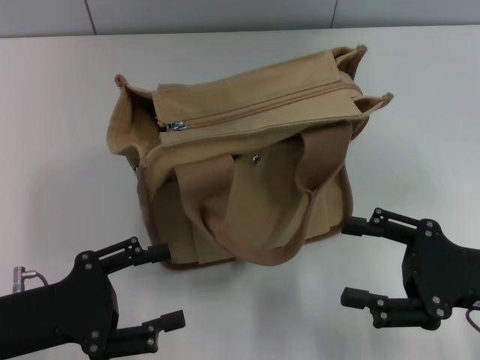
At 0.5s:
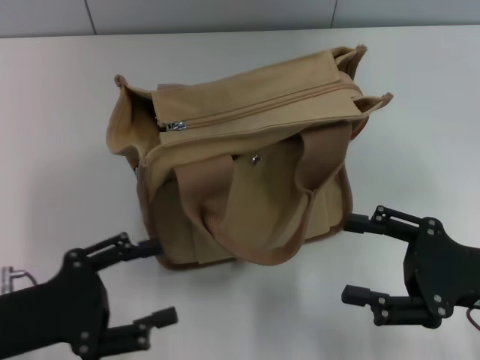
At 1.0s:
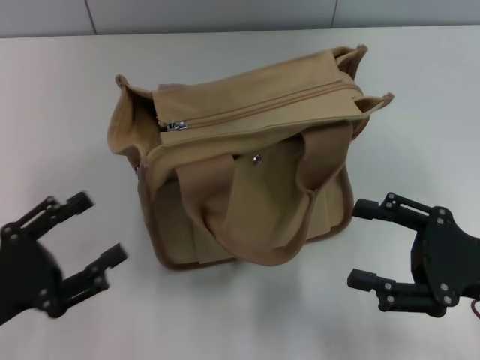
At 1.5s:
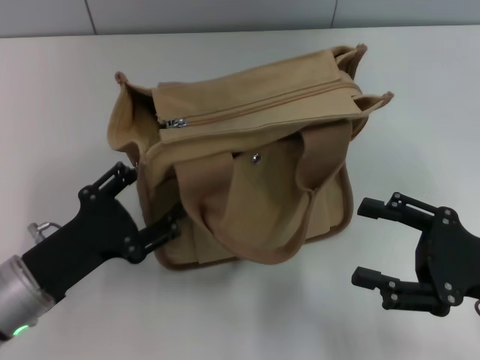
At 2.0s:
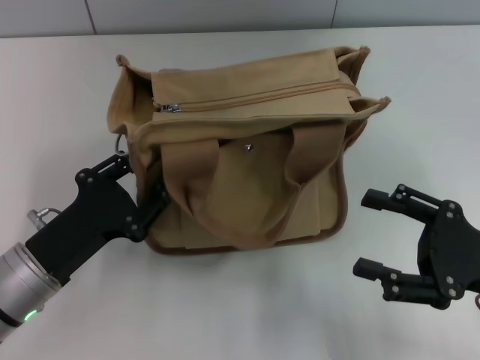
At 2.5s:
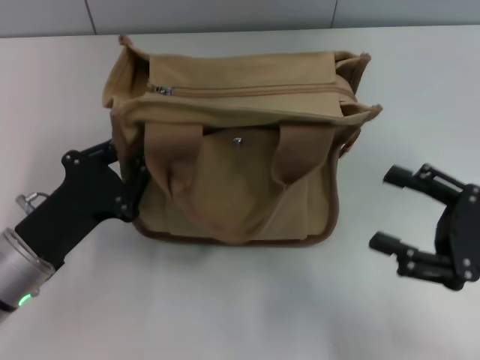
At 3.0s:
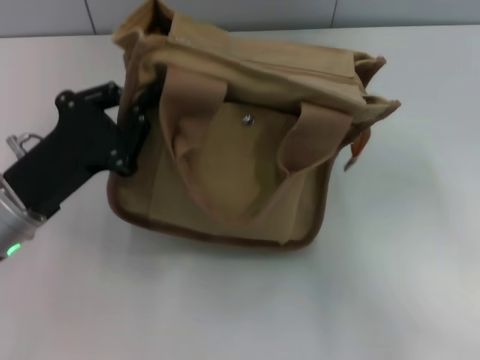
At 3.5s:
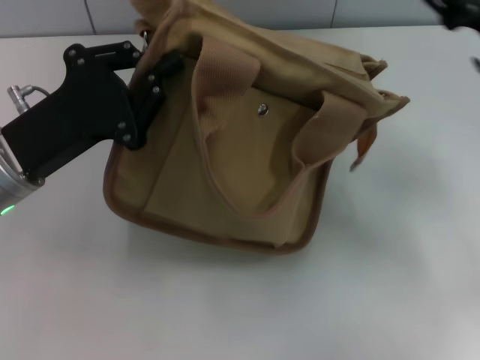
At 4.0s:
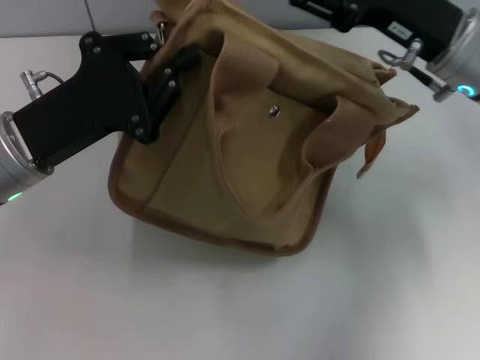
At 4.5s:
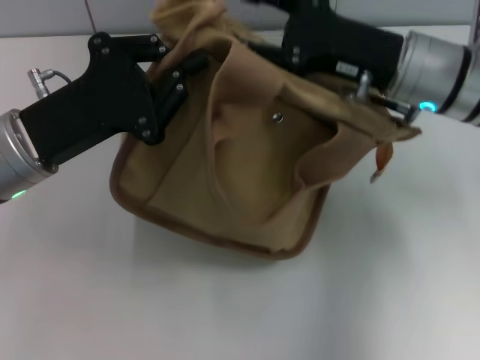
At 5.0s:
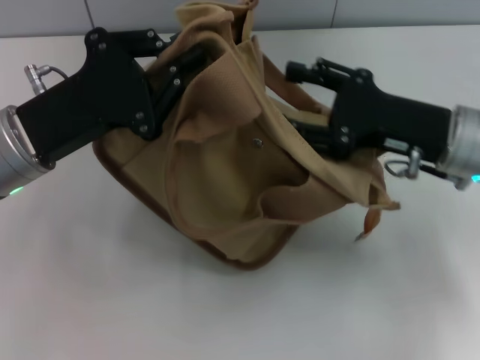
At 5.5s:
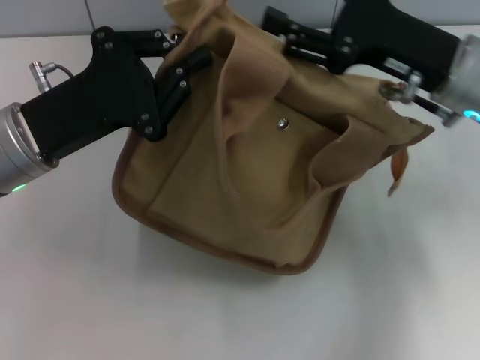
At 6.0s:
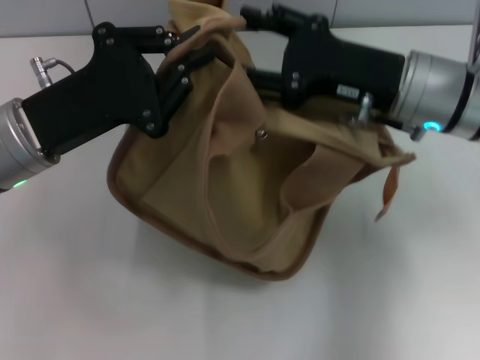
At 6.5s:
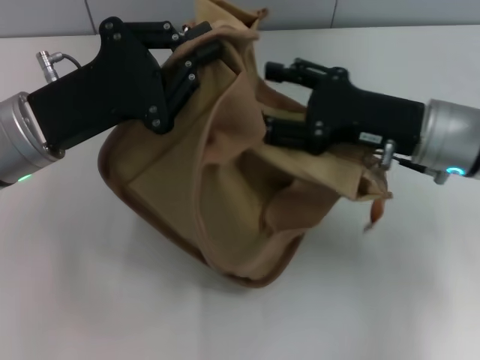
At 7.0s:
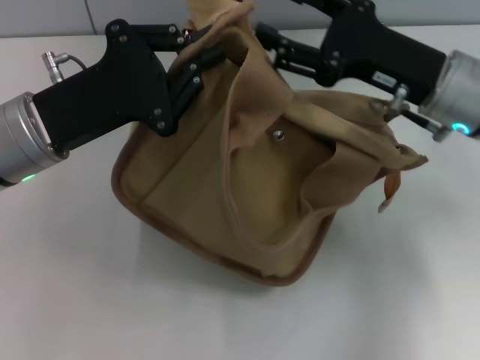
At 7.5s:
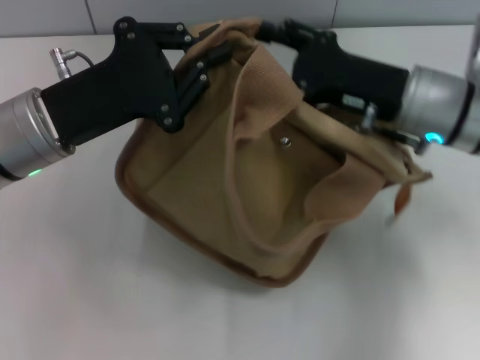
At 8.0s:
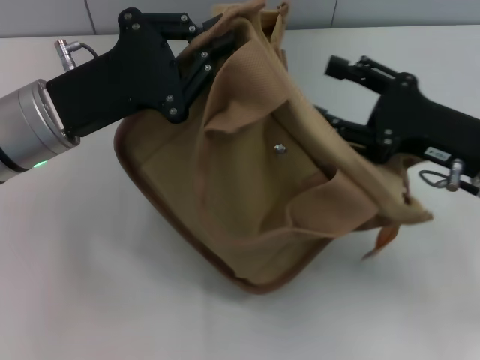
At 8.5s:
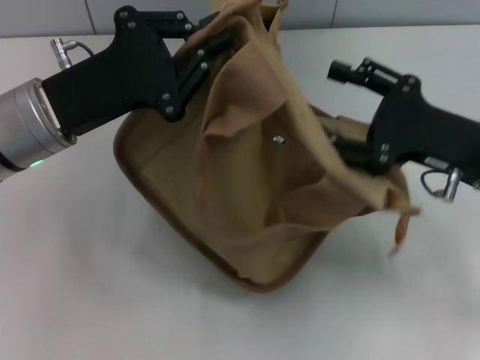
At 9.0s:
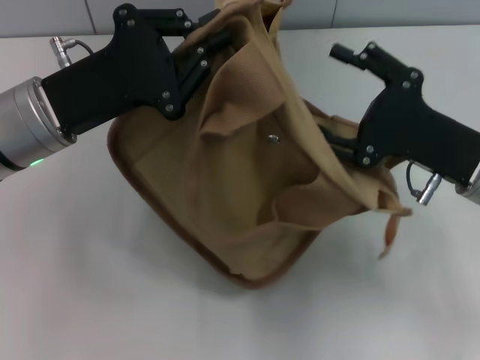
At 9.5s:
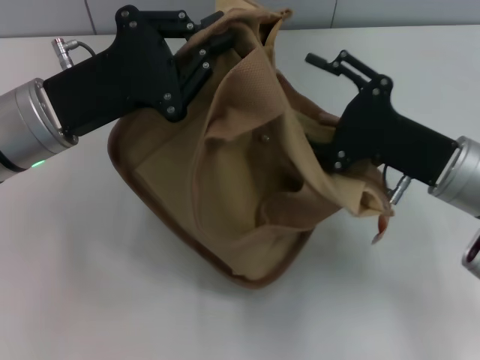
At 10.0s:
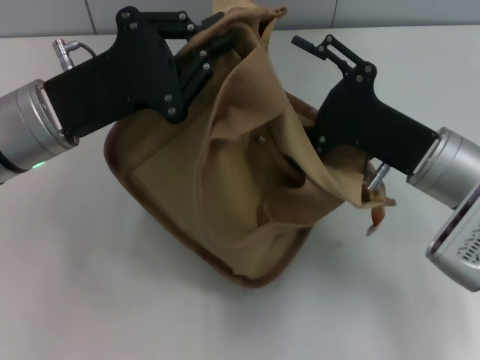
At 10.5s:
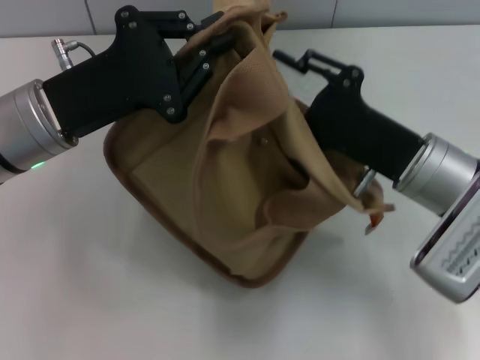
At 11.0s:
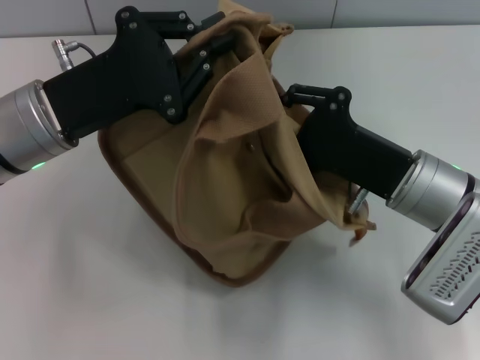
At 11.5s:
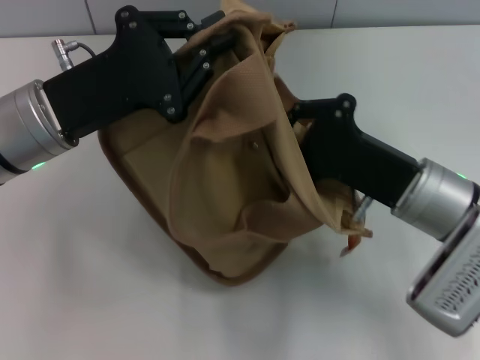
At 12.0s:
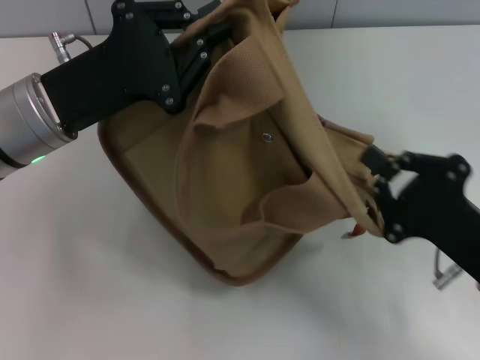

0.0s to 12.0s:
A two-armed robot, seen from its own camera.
0.0s to 2.0s: The left gripper changes place by about 5 cm.
2.0s to 4.0s: The left gripper moves upward and forward, about 10 cm, and closes up; the right gripper travels forward, upward and to the left by approximately 20 cm.
6.0s to 8.0s: The right gripper travels to the right and backward by roughly 10 cm.
8.0s to 10.0s: The right gripper ends up about 5 cm from where it was.
10.0s to 12.0s: The right gripper is displaced backward by about 10 cm, and closes.

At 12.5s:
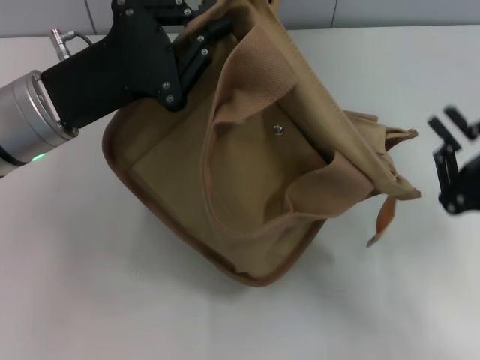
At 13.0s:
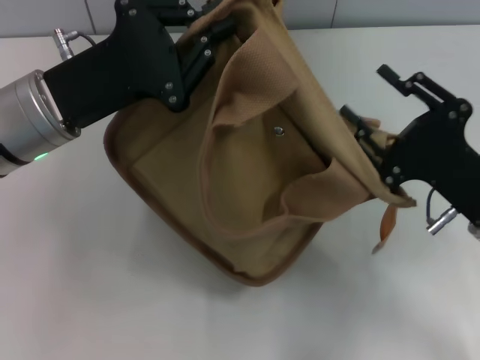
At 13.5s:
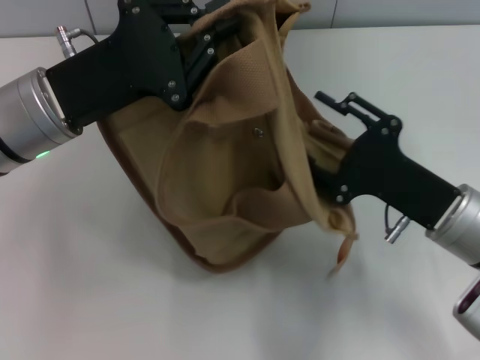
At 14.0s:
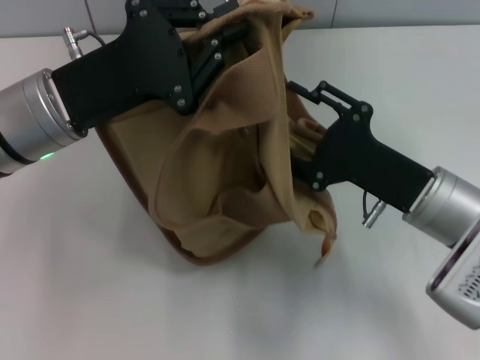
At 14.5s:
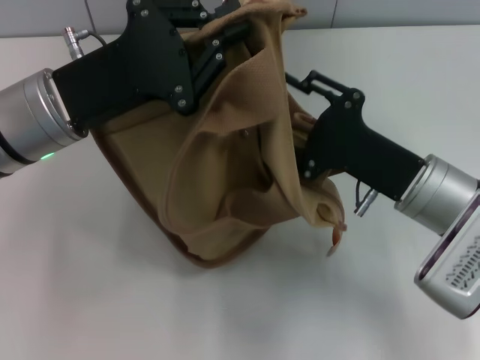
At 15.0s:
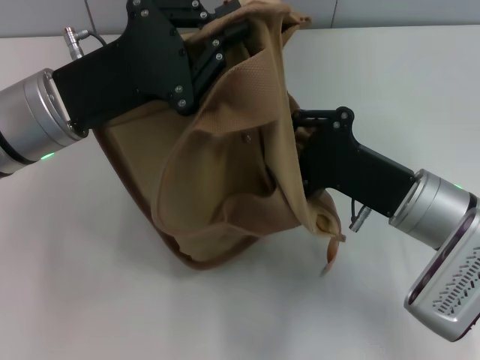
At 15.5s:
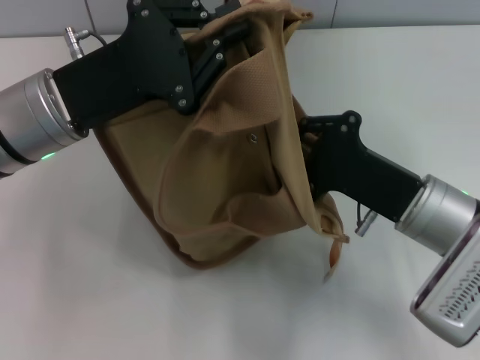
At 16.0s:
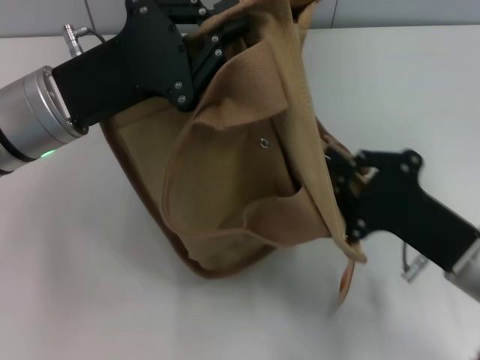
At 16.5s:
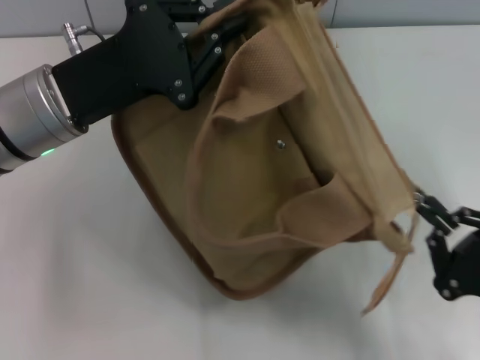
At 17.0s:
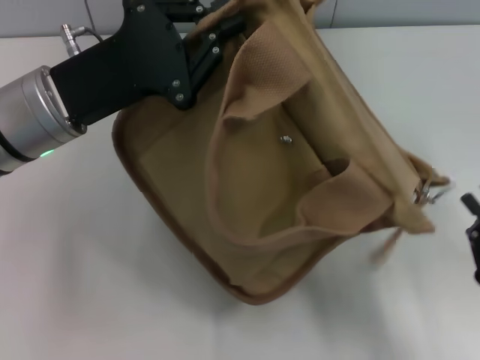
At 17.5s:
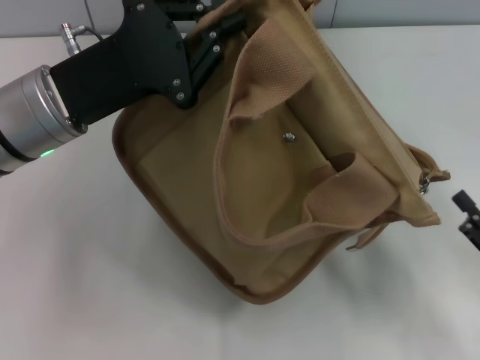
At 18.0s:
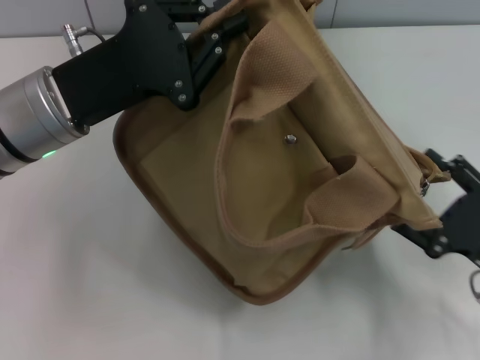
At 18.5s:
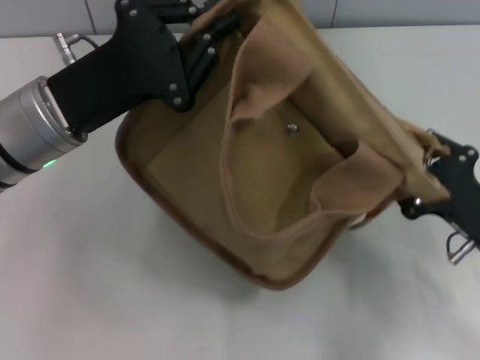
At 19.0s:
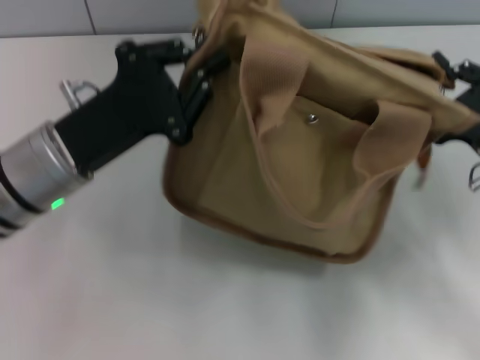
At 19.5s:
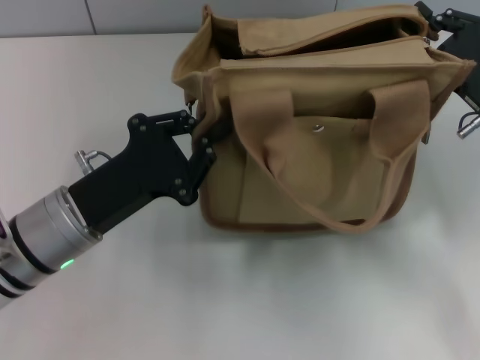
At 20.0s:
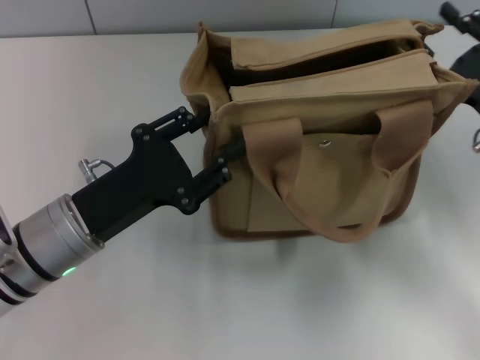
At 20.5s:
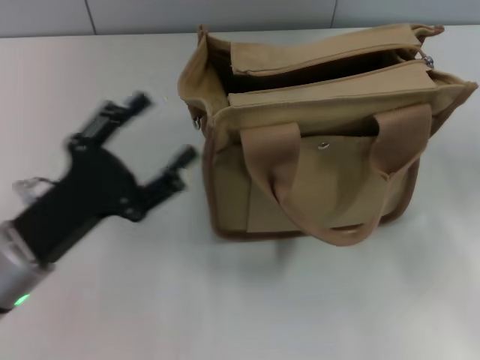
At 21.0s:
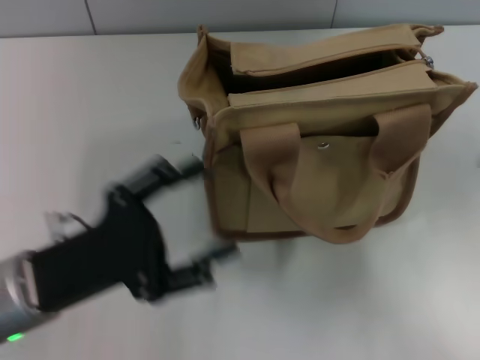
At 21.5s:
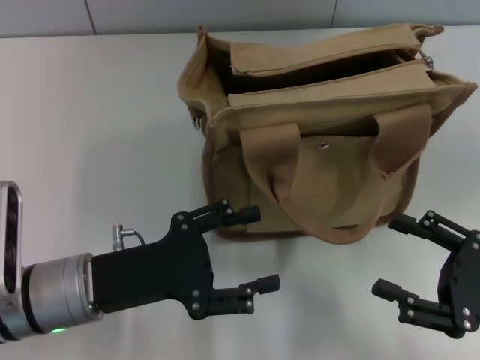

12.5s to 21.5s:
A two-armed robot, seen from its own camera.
Step, 12.5s to 17.0s: Pull open the zipper with your right hand.
Step, 17.5s to 20.0s: Grab the bag with your left hand.
12.5s to 14.5s: The right gripper moves to the left and forward, approximately 10 cm, and opens its fingers.
14.5s to 17.0s: The right gripper travels backward and to the right by approximately 20 cm, and closes its fingers.
17.0s to 19.5s: The right gripper is displaced forward by approximately 20 cm, and opens and closes again. Meanwhile the left gripper goes approximately 10 cm downward and backward.
19.5s to 21.5s: The left gripper opens up; the right gripper travels backward by some 15 cm, and opens up.

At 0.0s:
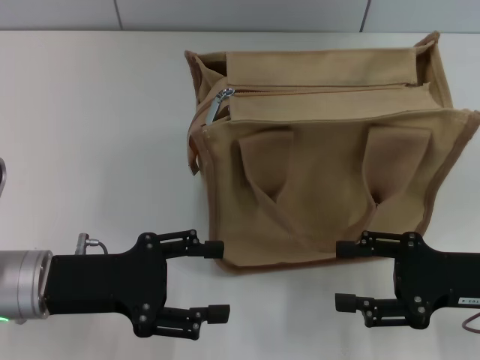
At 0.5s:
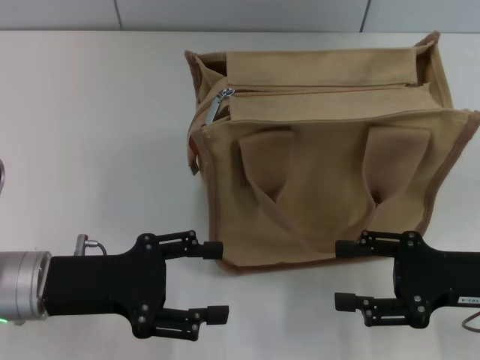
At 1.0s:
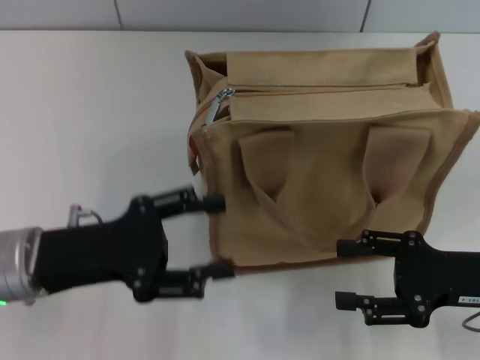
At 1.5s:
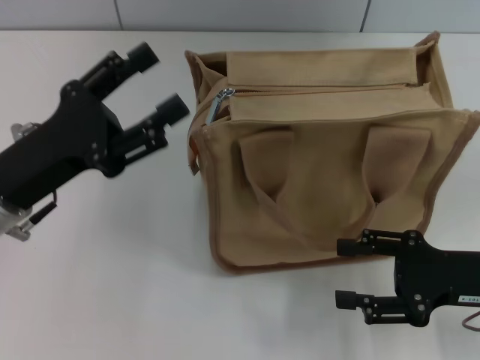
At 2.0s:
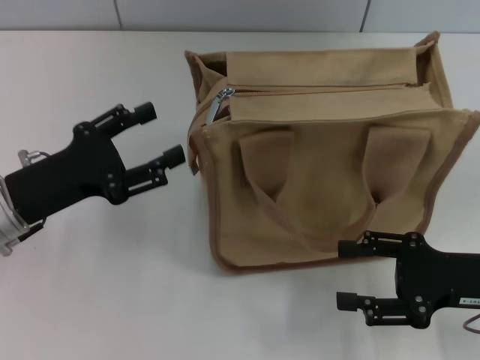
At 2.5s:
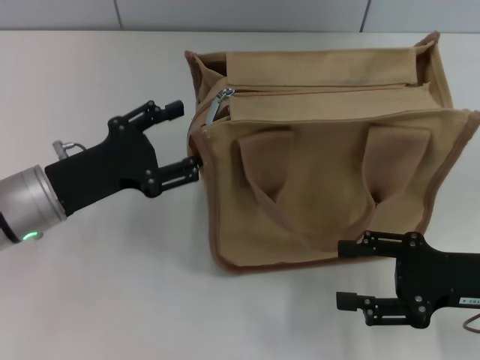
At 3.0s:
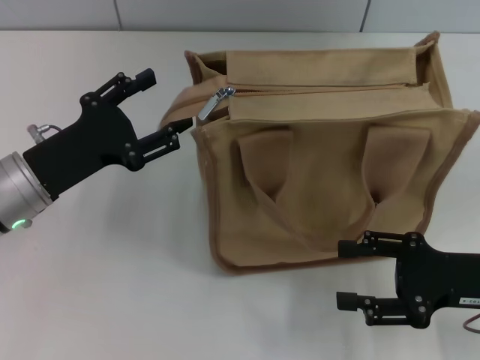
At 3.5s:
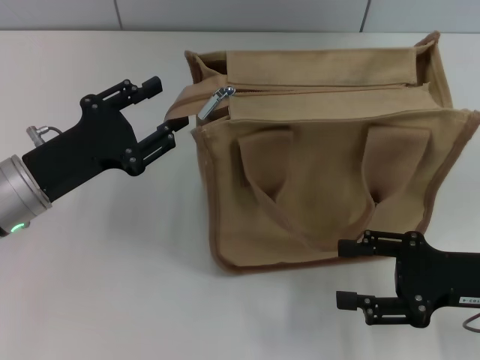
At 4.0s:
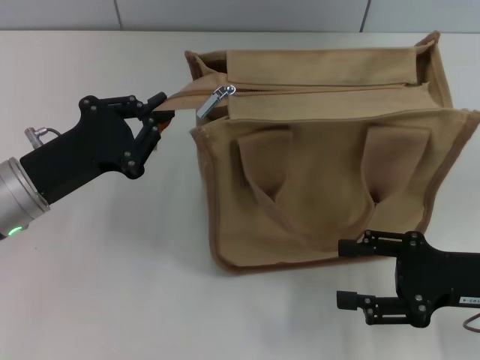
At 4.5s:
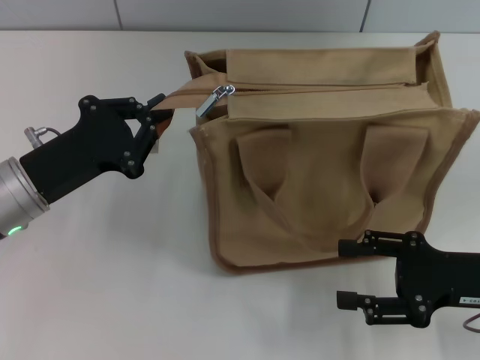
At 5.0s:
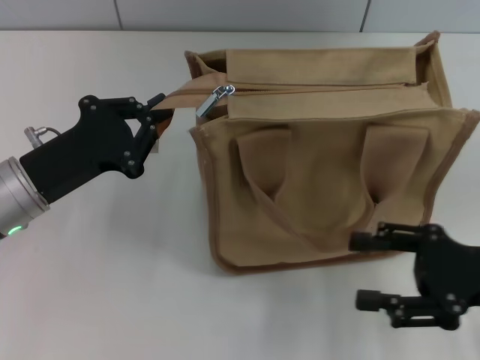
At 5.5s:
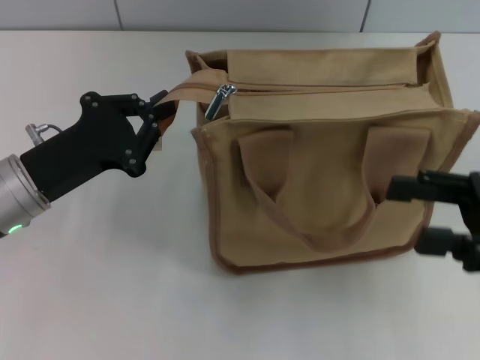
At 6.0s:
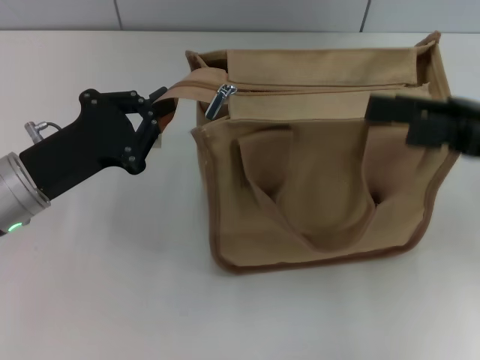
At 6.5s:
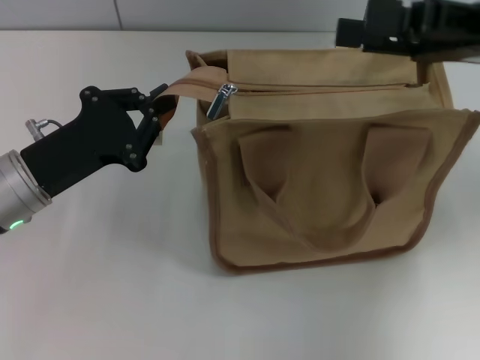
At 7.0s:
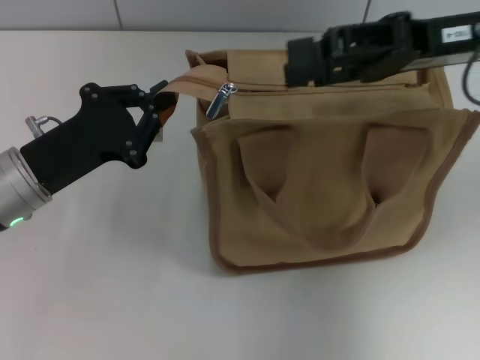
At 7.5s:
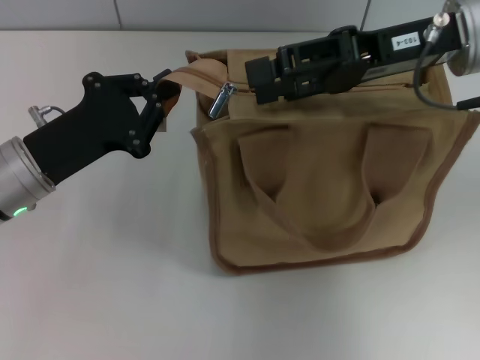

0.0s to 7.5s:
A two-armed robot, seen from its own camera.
2.0s to 4.0s: The left gripper closes up.
4.0s to 5.5s: The right gripper heads upward, covering about 5 cm.
5.5s to 7.5s: The right gripper shifts approximately 20 cm forward, to the left and upward.
